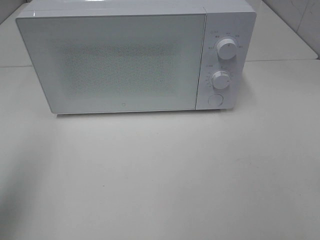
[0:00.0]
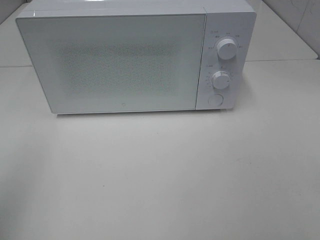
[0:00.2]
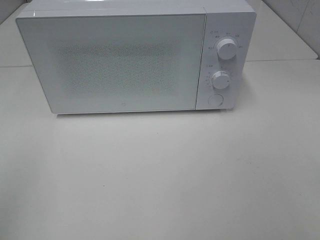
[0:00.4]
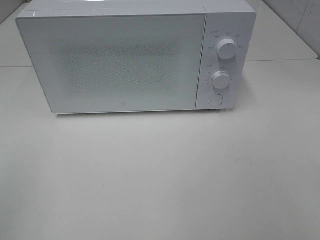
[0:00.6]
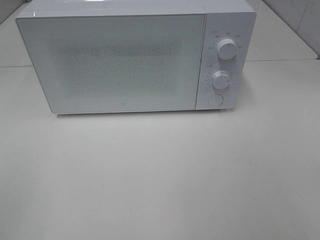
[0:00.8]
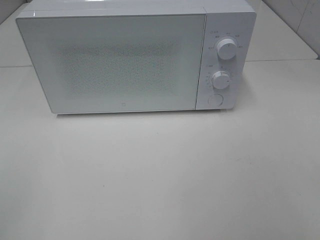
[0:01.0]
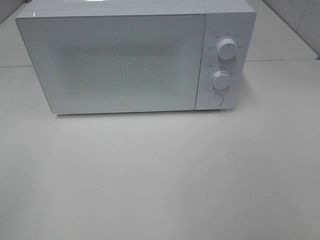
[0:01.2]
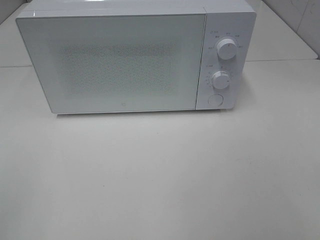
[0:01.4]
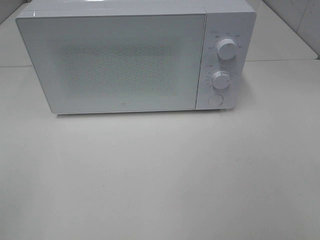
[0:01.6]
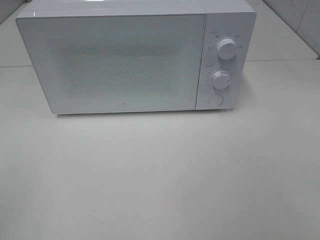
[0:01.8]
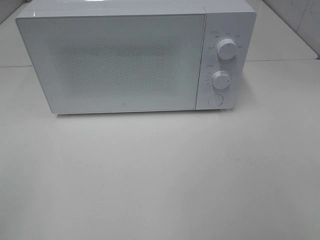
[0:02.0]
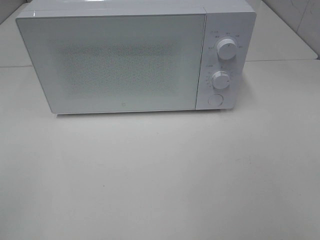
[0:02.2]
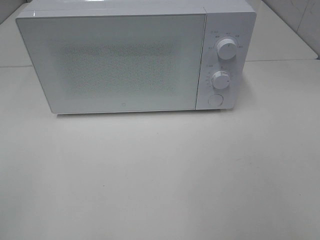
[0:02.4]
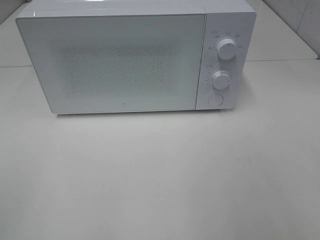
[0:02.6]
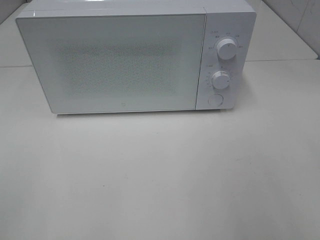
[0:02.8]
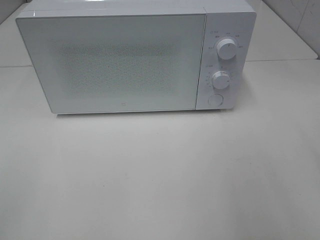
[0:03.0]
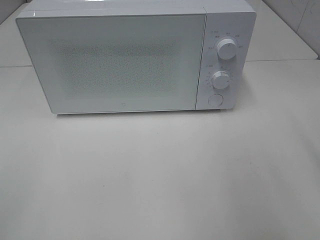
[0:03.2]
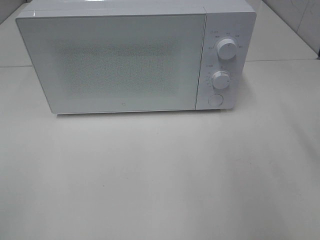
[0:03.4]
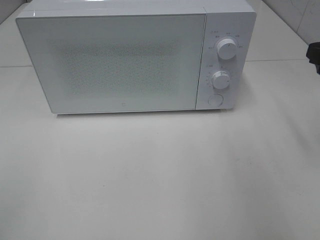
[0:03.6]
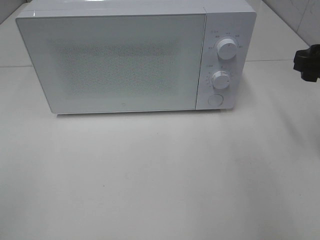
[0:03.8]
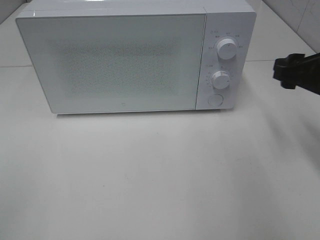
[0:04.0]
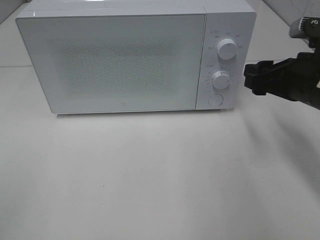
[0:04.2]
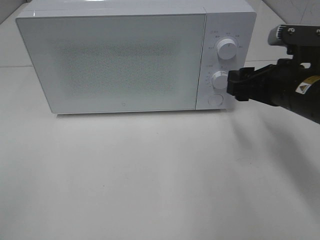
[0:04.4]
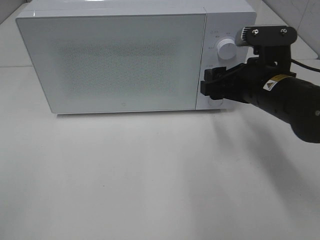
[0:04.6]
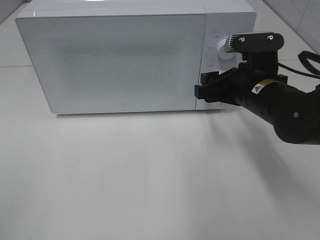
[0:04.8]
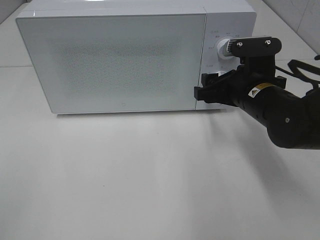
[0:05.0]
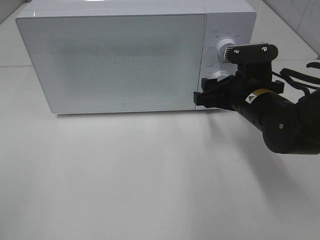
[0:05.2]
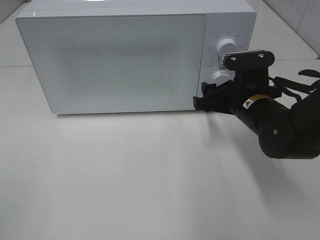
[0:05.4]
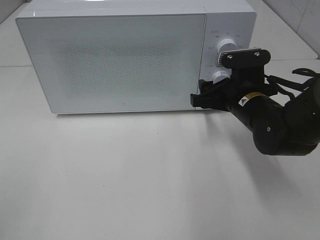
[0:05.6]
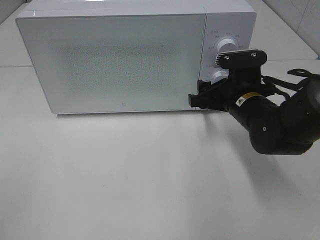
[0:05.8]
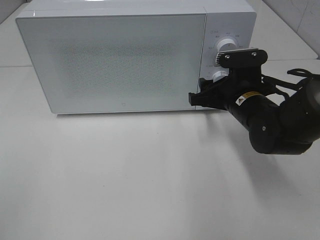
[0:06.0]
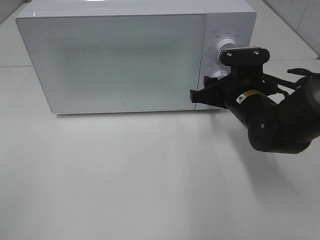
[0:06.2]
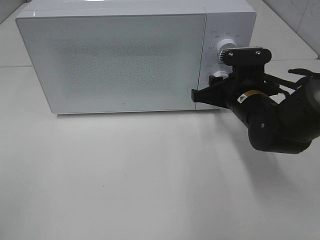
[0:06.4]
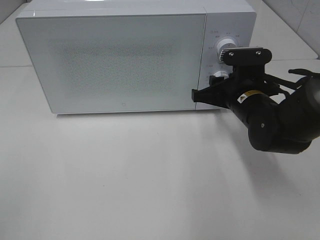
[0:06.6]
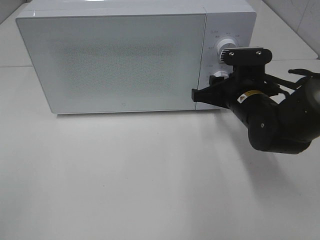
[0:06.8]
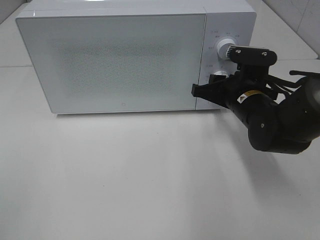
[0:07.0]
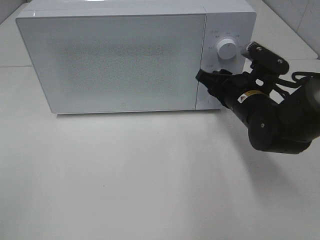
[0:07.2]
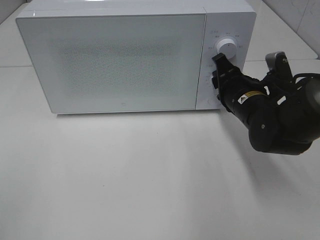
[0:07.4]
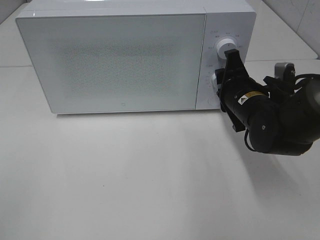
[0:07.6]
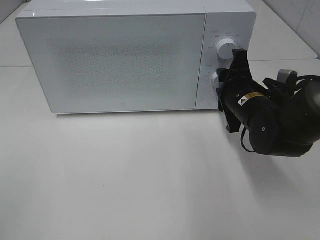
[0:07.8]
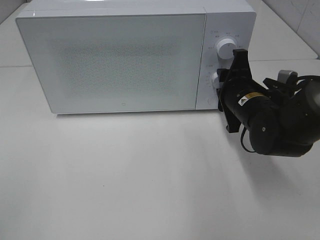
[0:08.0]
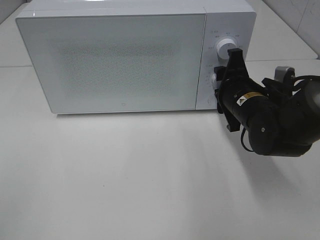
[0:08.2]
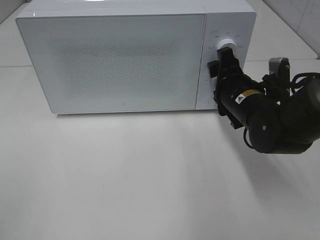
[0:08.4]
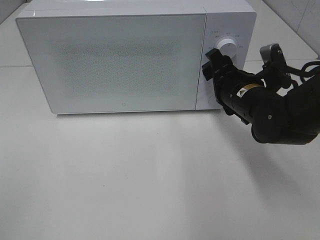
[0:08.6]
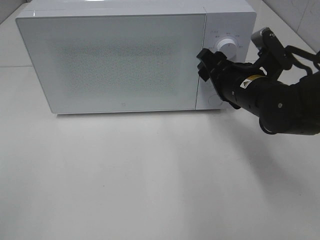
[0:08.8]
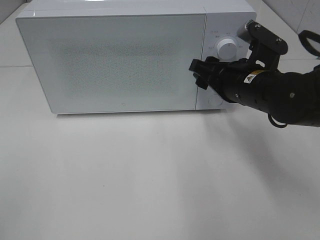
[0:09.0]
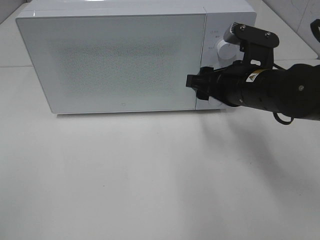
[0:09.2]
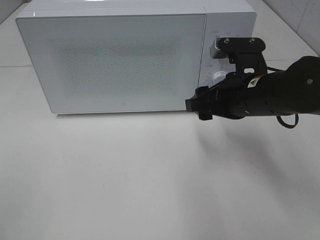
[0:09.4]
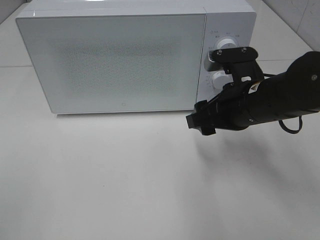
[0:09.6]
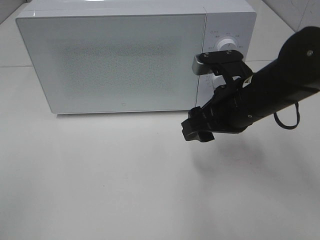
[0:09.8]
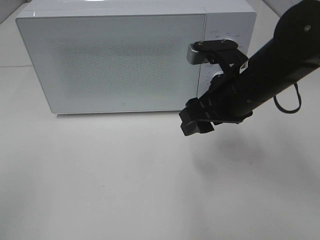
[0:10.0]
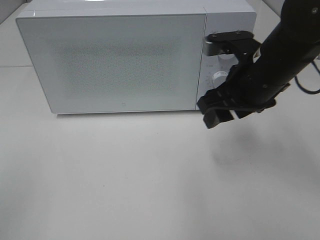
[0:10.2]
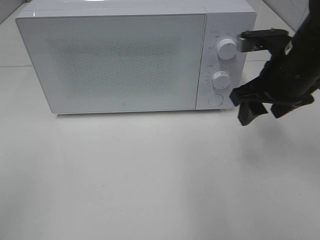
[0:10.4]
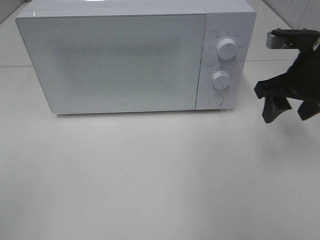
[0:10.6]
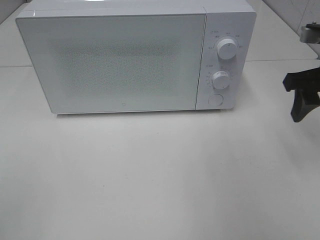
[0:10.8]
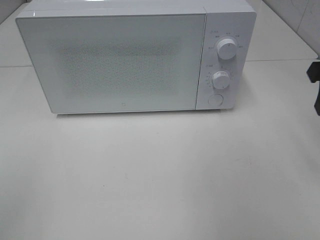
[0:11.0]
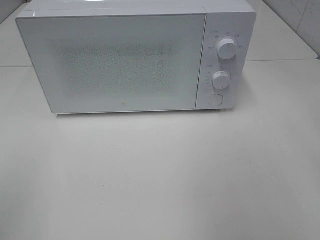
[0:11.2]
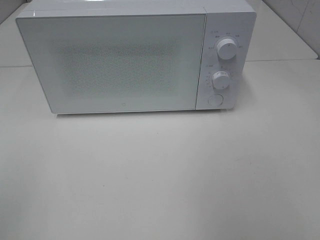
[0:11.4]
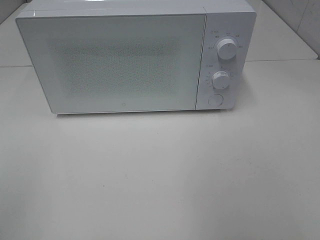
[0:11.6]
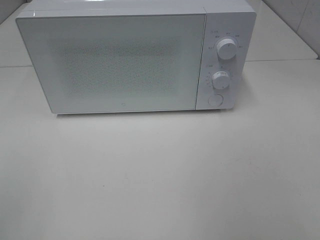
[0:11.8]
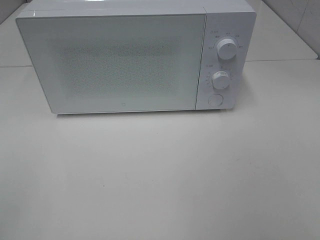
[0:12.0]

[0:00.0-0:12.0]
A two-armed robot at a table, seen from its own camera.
Task of the whole recording: Heat the burger.
Step, 0:00.0 to 0:08.4: Right hand: twist timer button.
0:00.0 to 0:01.6: The left gripper heads backward, covering roughly 15 cm.
0:03.0 to 0:04.4: The right gripper is displaced forward, downward and to the left by about 20 cm.
0:04.4 to 0:06.0: The right gripper is displaced downward by some 5 cm.
0:07.6 to 0:09.0: The right gripper shifts by roughly 5 cm.
0:09.0 to 0:10.4: The right gripper heads to the right, covering roughly 5 cm.
0:10.4 to 0:12.0: The right gripper shifts roughly 25 cm backward and upward.

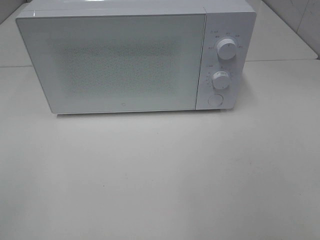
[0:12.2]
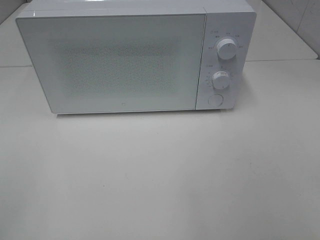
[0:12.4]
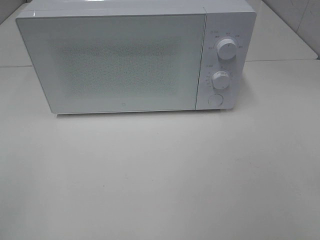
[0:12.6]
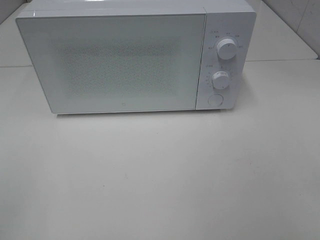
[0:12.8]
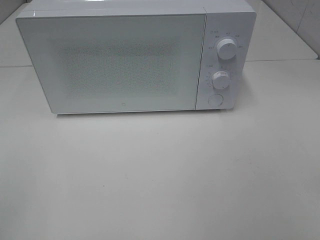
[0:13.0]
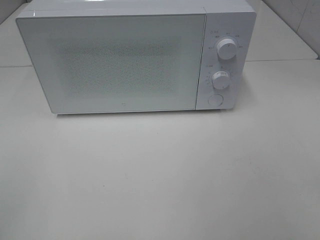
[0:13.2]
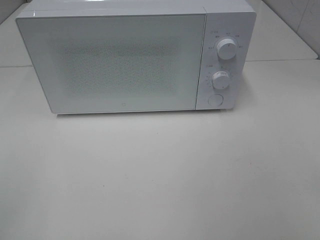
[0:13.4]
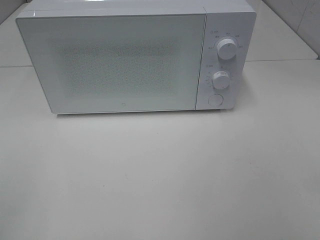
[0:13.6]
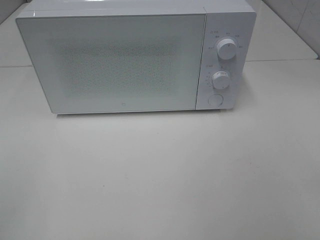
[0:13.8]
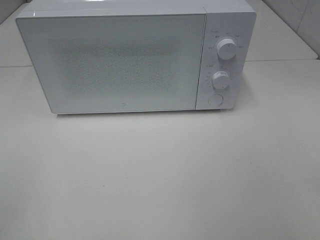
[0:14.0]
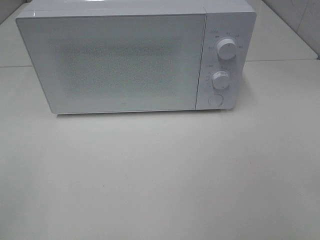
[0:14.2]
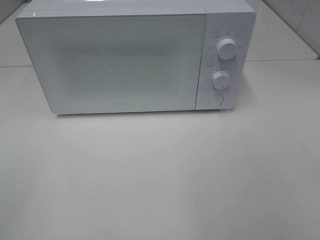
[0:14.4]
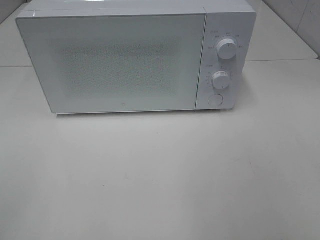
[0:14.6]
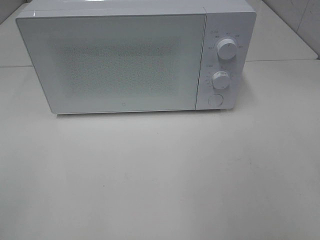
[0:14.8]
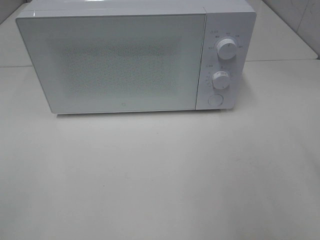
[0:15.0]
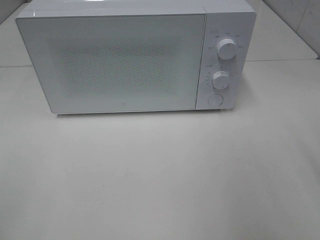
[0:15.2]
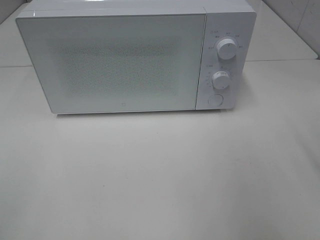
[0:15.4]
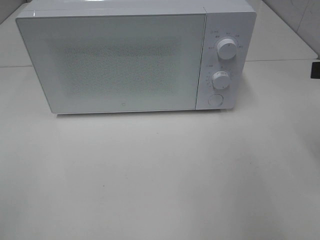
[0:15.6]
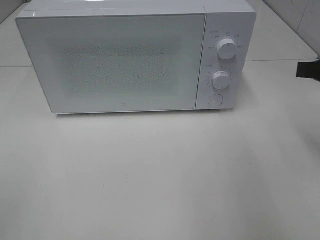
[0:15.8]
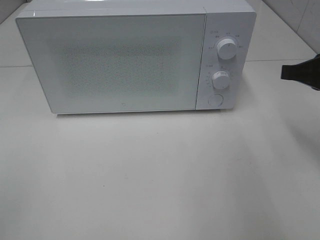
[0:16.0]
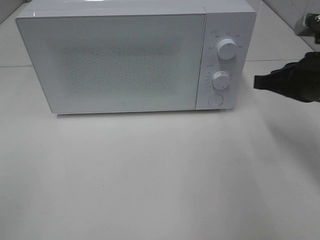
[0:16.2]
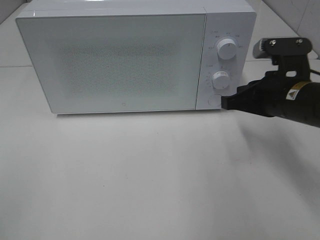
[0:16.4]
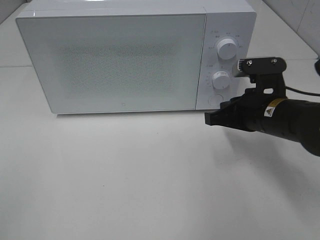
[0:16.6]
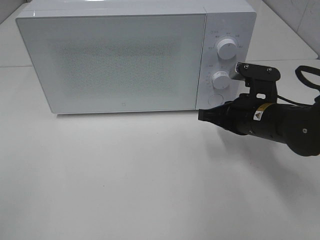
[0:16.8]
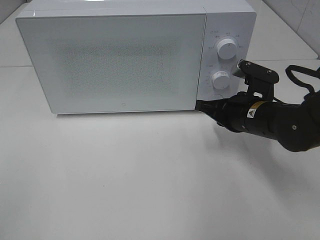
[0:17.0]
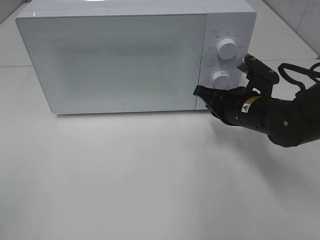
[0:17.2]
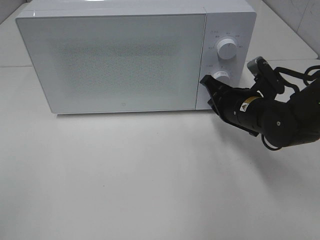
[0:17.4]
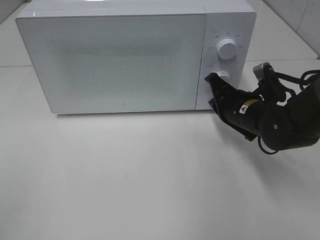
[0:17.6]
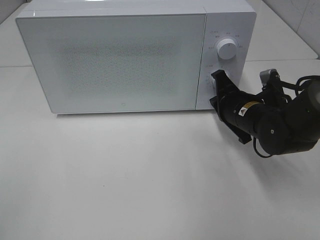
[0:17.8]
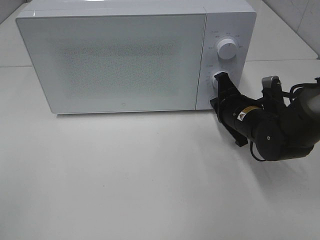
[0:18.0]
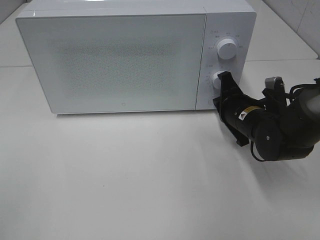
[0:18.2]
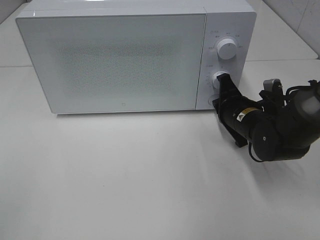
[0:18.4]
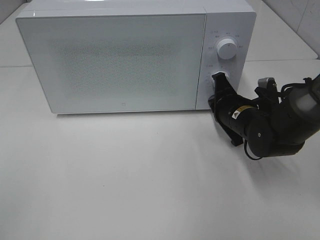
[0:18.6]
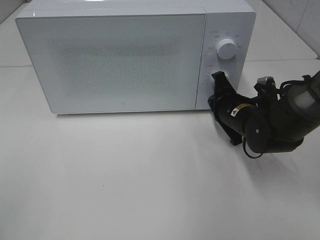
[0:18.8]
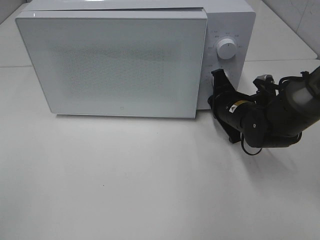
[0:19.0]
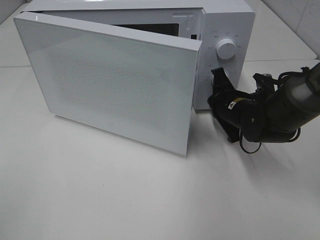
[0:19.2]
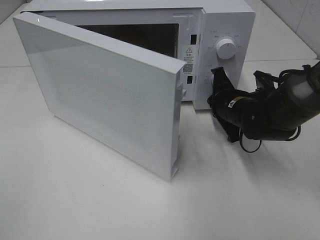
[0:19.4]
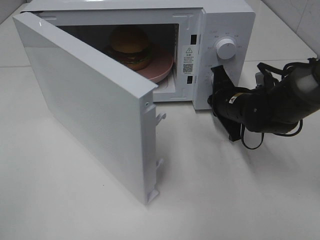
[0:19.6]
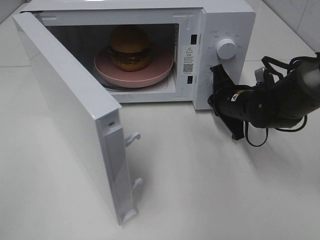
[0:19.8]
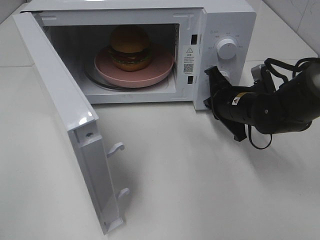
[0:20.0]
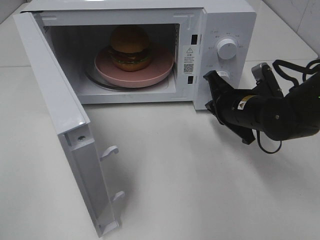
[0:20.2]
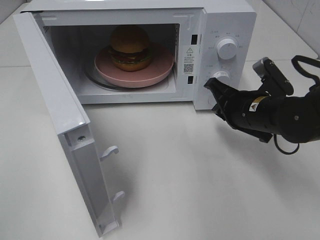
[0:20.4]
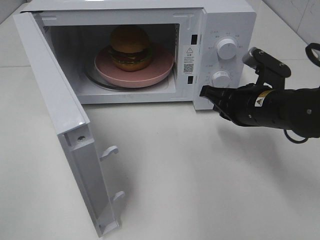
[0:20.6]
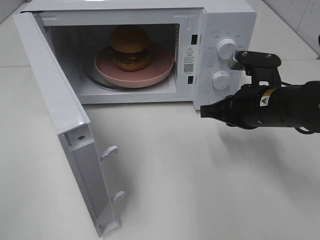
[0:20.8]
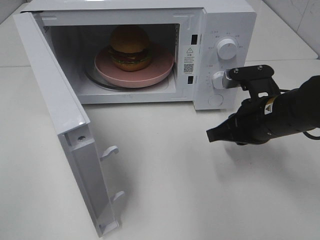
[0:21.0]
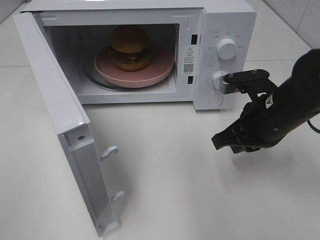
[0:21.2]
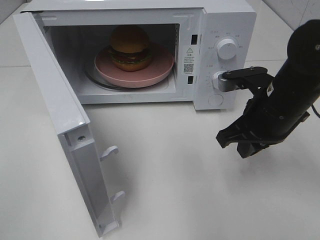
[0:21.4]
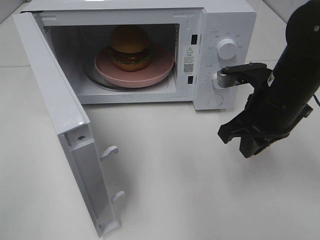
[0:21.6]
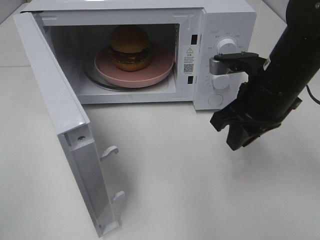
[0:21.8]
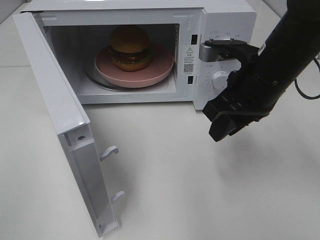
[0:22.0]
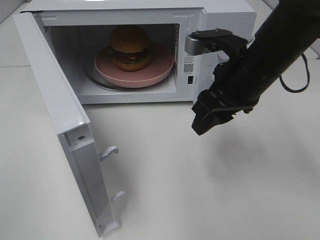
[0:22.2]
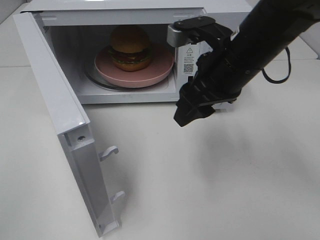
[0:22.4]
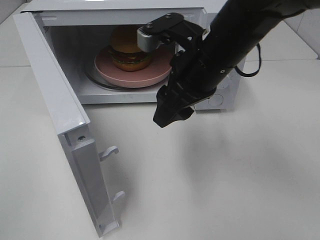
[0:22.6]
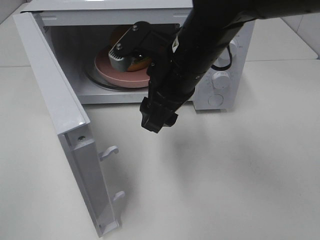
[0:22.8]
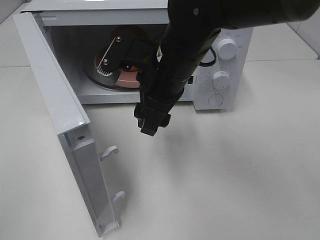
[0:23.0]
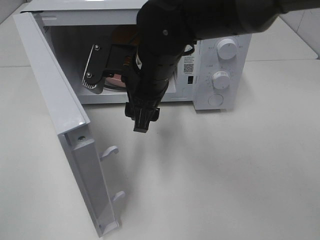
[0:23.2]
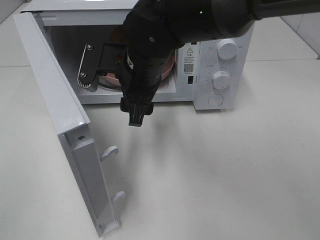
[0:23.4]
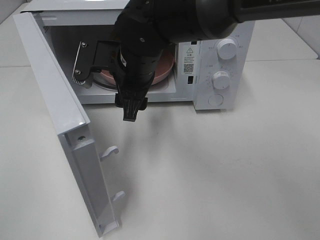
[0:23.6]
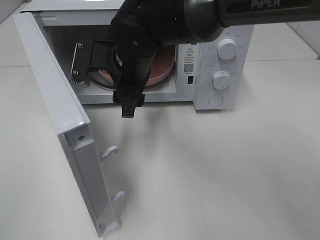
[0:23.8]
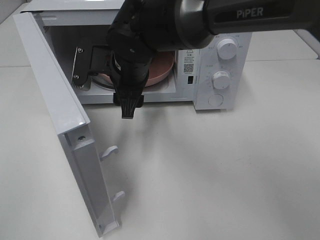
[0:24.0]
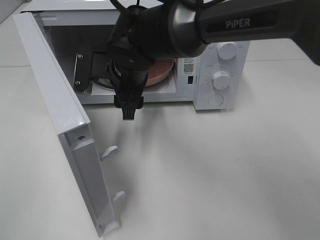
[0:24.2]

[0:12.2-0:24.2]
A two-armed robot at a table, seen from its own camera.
Task of the whole recording: Heat the burger.
Step, 0:12.2 to 0:20.0: Right hand: press the switch.
0:15.2 to 0:16.6: The right gripper moves downward, forward and to the left, roughly 20 cm, and closes its fingers.
0:16.6 to 0:18.2: The right gripper is displaced downward by some 5 cm.
0:19.8 to 0:21.2: The right gripper goes approximately 10 cm backward and upward.
0:21.2 to 0:22.6: The right gripper travels to the left and upward by some 15 cm, and opens its fingers.
0:22.6 to 0:24.2: The right gripper travels to the left, downward and forward by some 15 cm.
